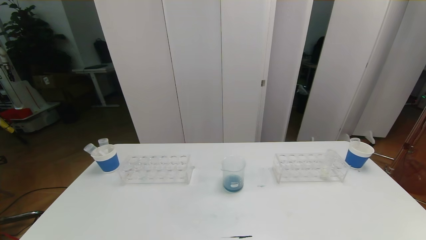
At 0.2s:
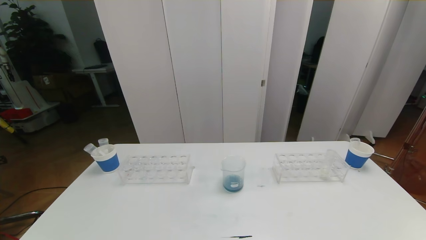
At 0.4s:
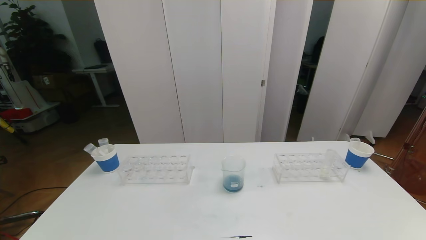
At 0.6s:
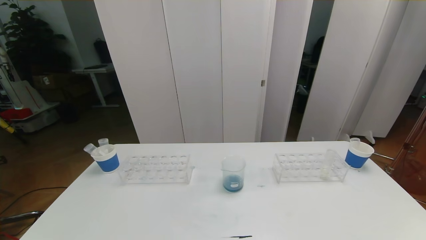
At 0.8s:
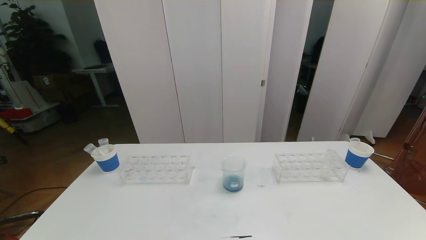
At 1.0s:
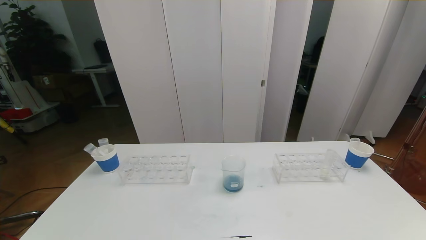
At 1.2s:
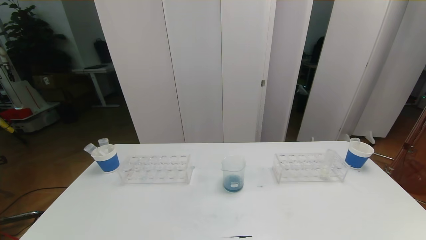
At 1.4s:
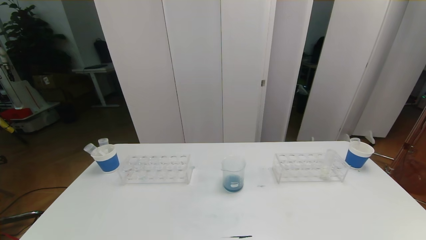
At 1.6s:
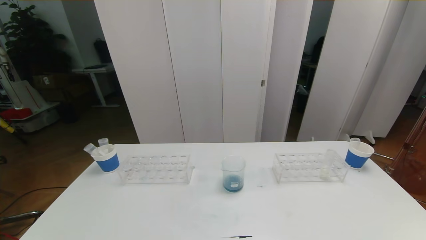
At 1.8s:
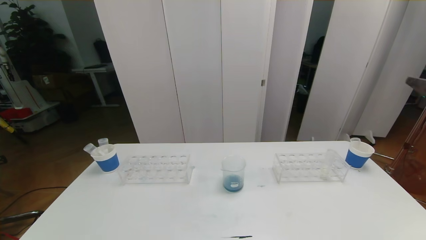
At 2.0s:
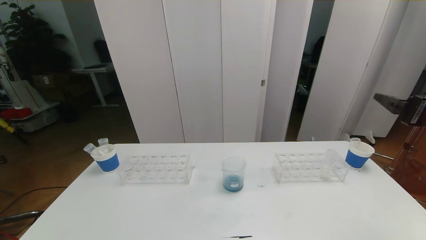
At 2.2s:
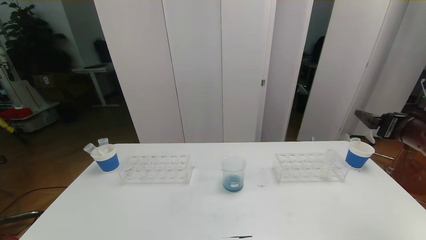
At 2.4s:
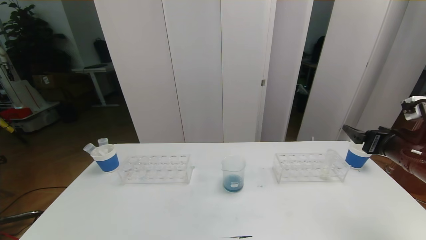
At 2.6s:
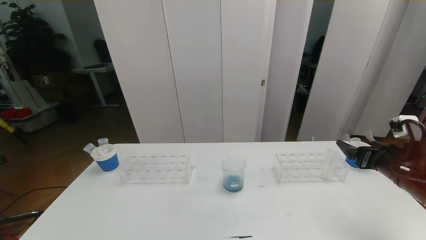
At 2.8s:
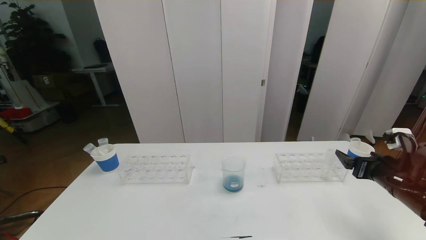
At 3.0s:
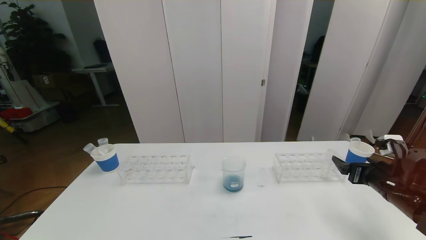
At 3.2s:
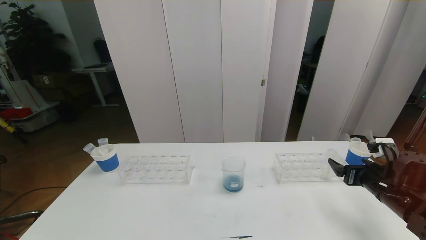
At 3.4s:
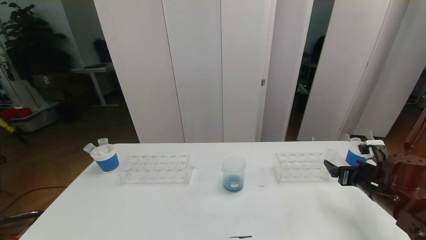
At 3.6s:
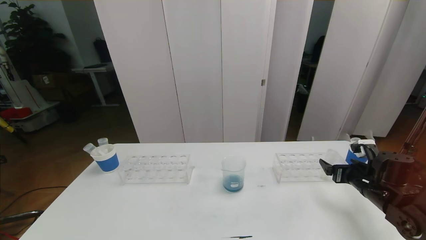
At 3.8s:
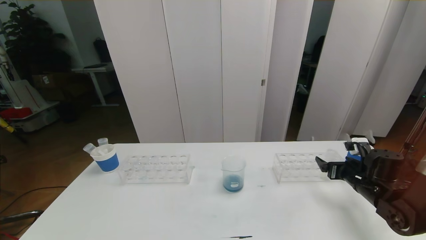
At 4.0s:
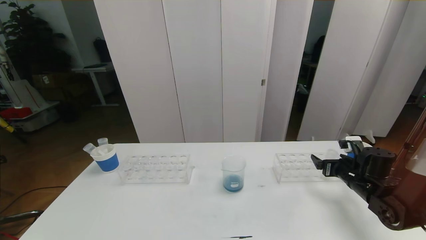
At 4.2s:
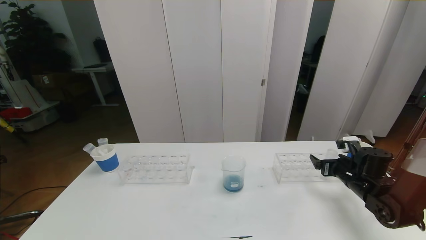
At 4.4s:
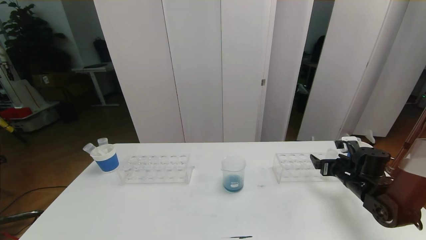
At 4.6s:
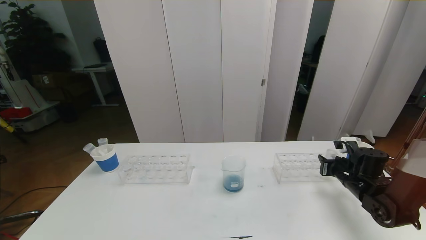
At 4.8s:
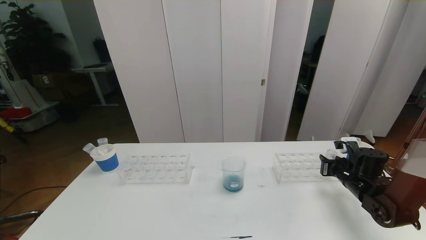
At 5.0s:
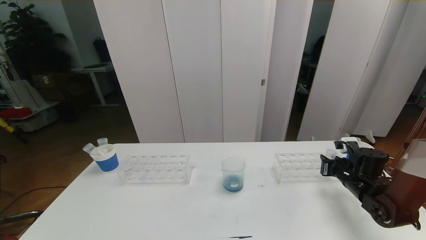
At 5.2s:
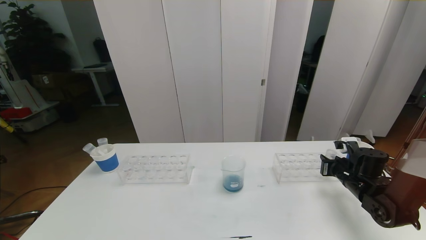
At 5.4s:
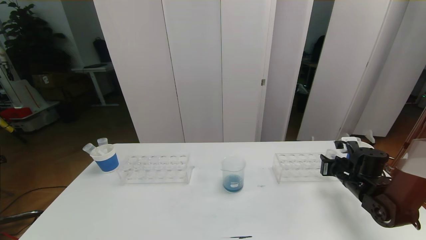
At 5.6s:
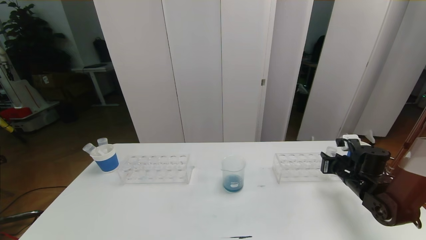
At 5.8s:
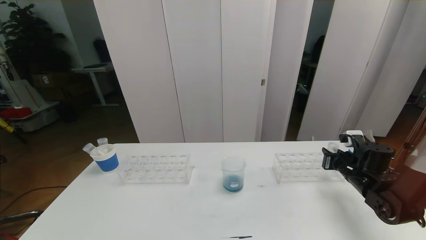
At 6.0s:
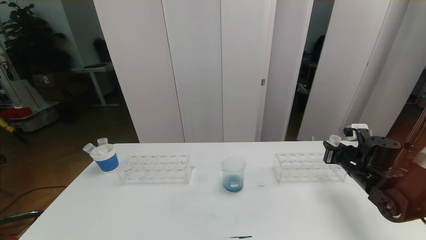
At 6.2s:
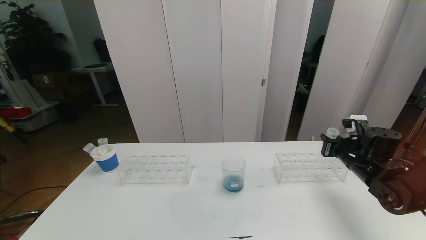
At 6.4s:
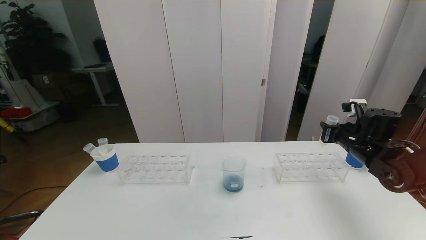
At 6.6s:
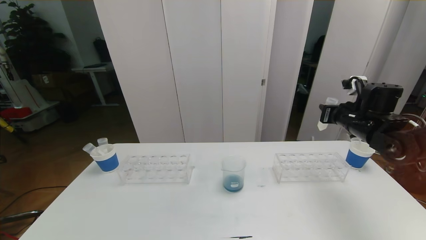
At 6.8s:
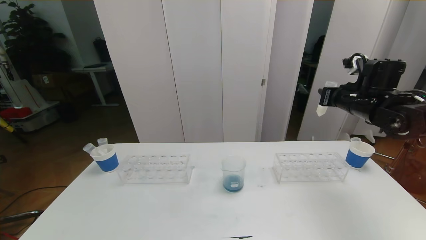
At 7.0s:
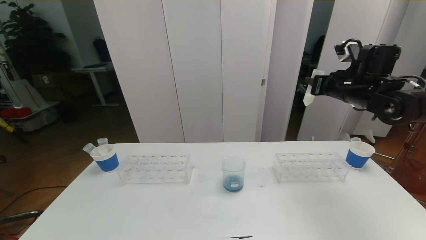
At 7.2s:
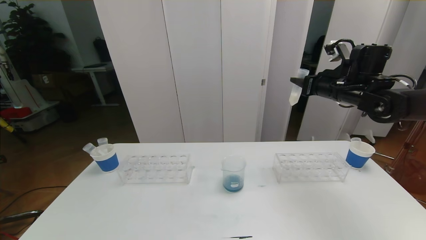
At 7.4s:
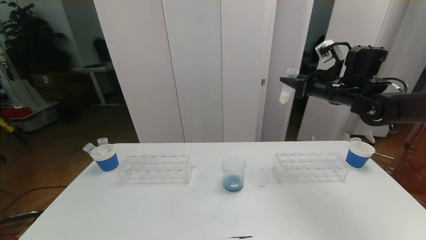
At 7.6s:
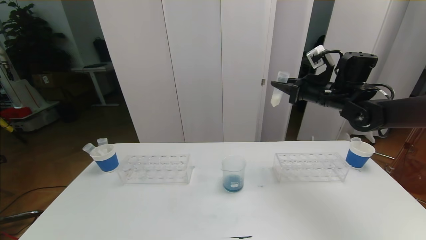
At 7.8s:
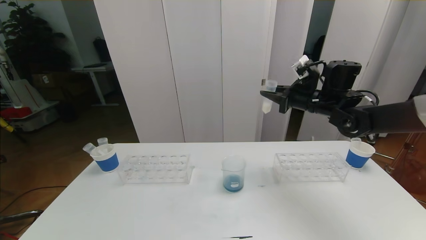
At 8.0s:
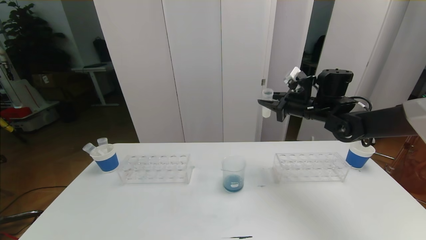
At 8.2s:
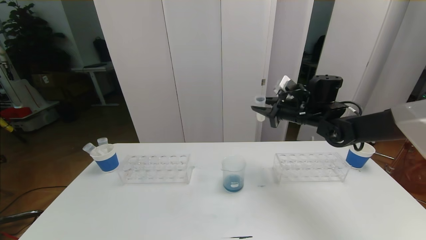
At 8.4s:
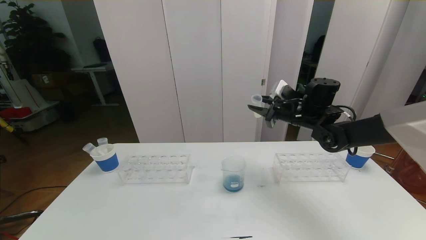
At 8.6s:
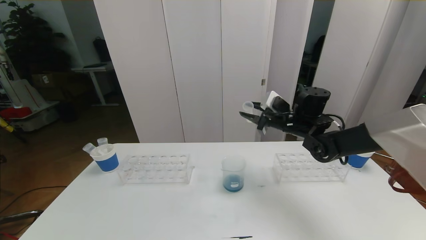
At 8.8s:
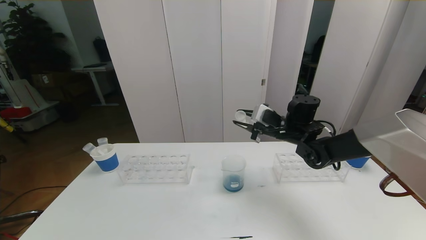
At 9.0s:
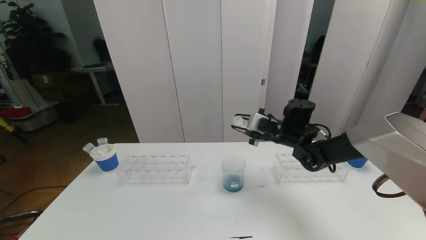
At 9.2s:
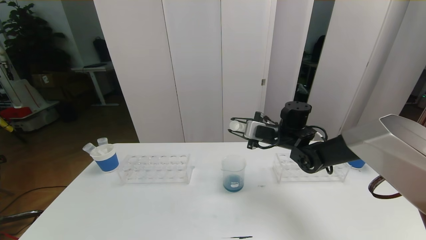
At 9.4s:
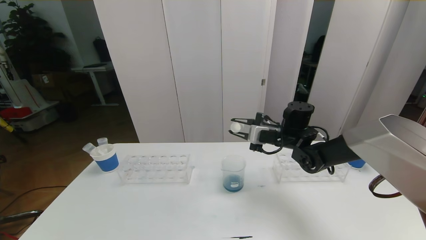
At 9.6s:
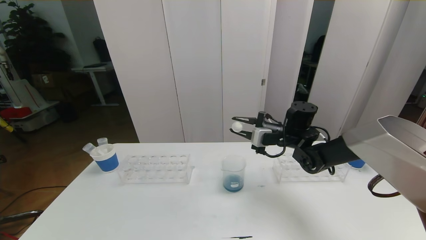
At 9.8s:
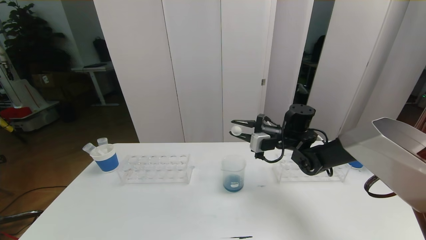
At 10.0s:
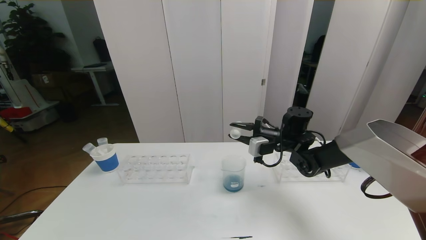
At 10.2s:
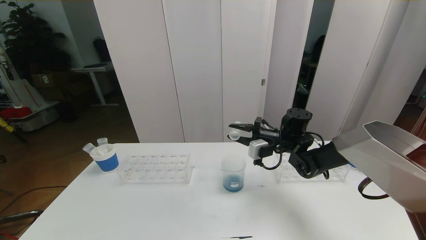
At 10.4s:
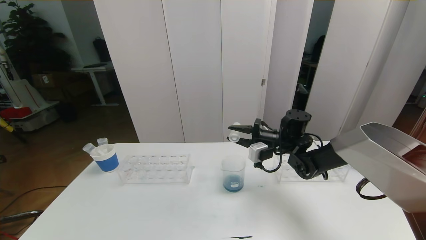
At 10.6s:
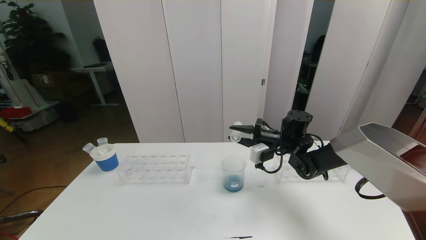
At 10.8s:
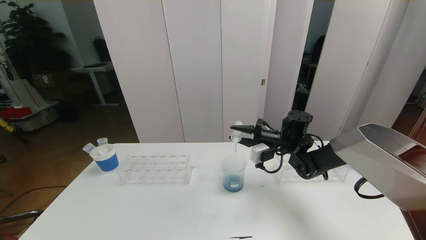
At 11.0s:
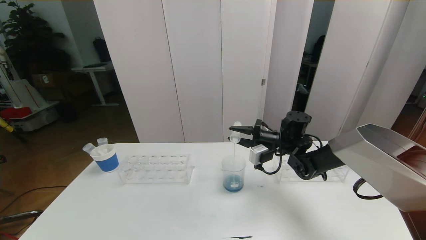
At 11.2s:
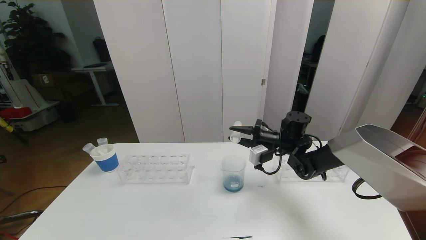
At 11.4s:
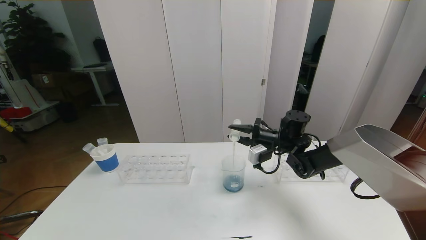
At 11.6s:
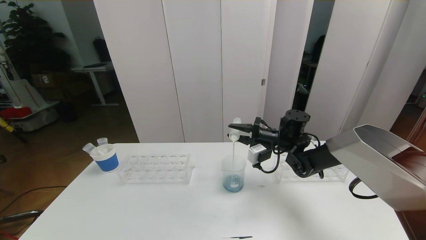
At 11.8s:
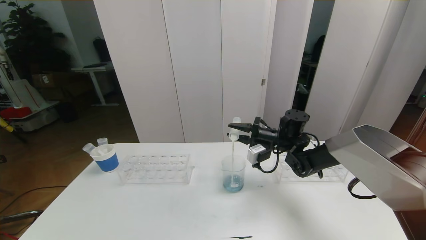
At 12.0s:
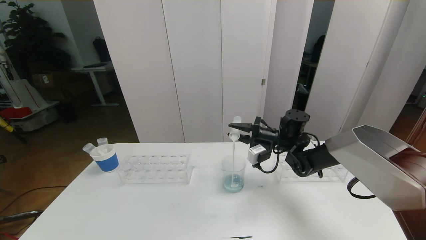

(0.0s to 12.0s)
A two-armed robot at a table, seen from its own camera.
Task of the whole recording: pick up the test tube with red pigment the test tube with blue pigment and the test tube with white pigment by grippers and pour them into the beaker.
1.6s - 3.0s: The right gripper shifts roughly 25 cm downward and forward.
3.0s - 4.4s: The right gripper heads forward and downward, covering about 10 cm.
4.4s - 6.0s: The right gripper closes.
6.0s - 7.6s: The right gripper heads upward, forward and to the left, covering about 20 cm.
7.6s - 9.0s: The right gripper travels downward and to the left by some 15 cm.
10.4s - 12.0s: The grippers move only a little.

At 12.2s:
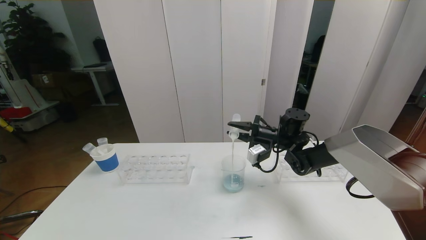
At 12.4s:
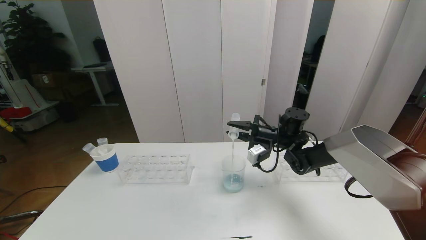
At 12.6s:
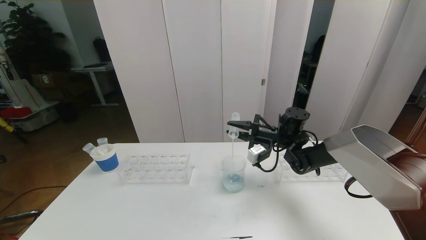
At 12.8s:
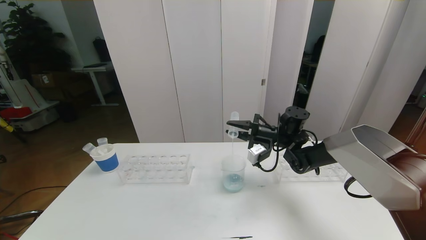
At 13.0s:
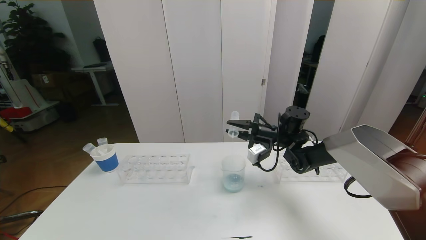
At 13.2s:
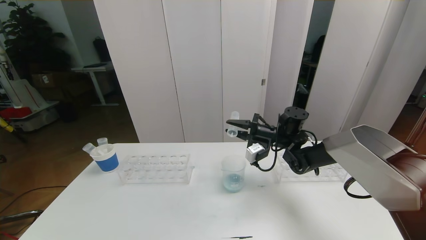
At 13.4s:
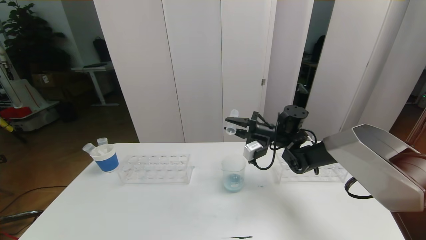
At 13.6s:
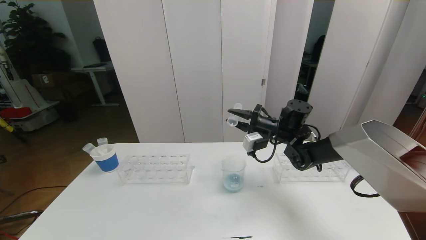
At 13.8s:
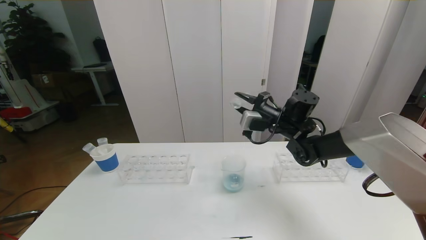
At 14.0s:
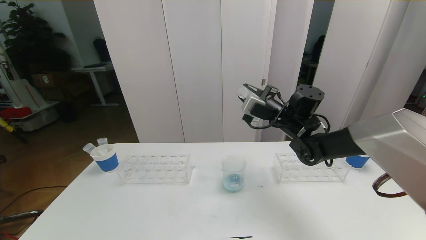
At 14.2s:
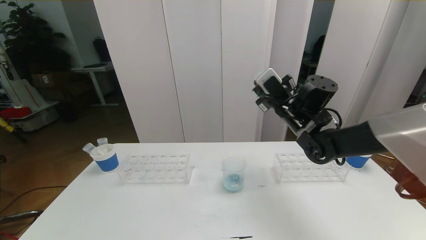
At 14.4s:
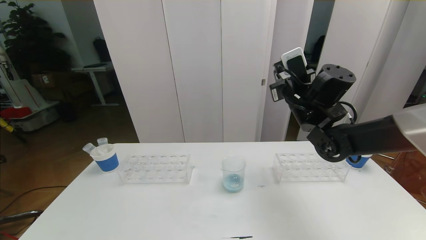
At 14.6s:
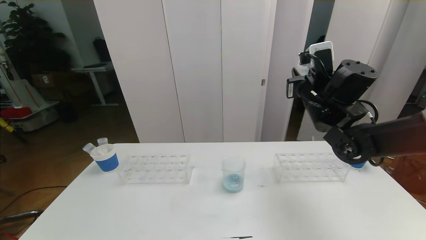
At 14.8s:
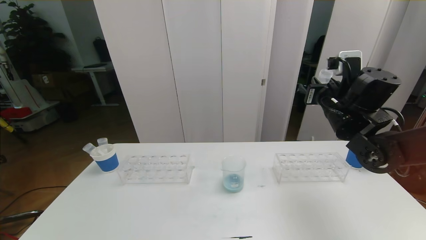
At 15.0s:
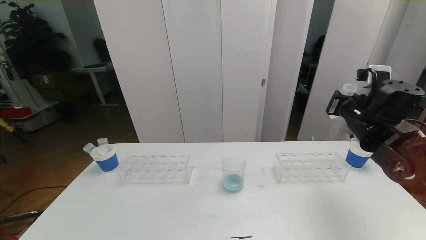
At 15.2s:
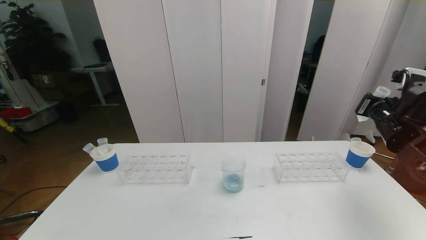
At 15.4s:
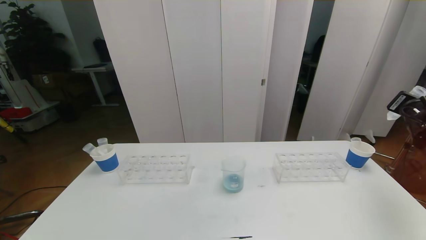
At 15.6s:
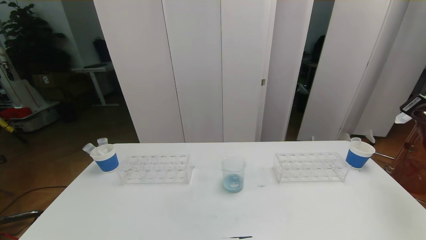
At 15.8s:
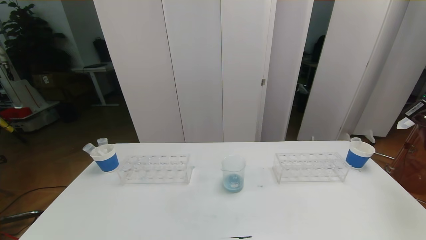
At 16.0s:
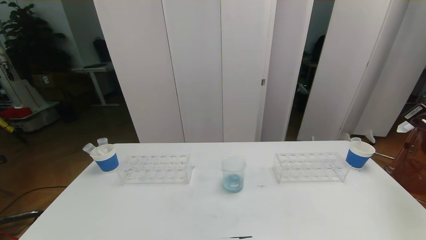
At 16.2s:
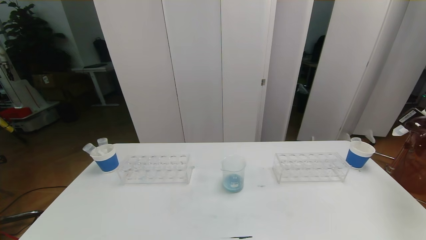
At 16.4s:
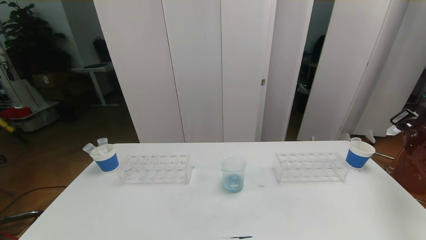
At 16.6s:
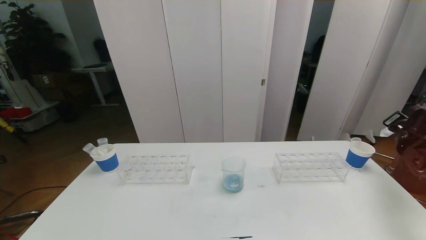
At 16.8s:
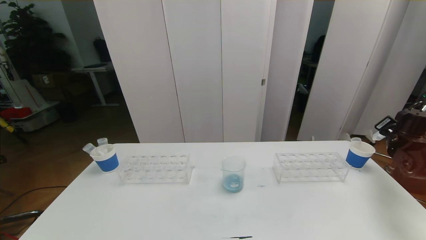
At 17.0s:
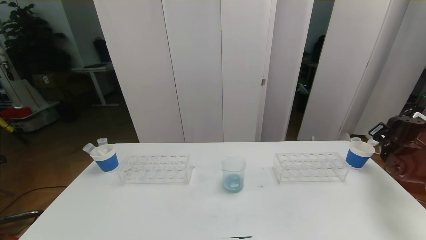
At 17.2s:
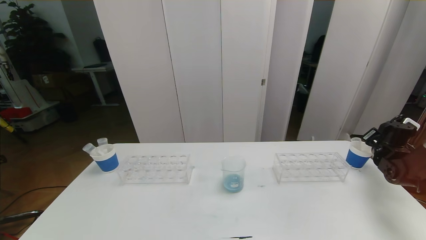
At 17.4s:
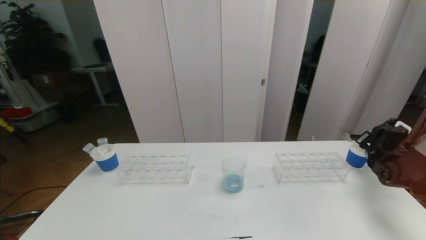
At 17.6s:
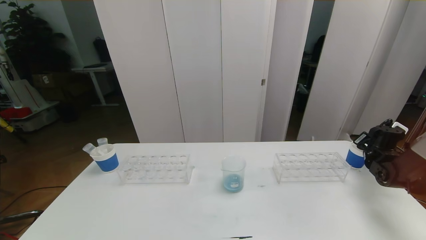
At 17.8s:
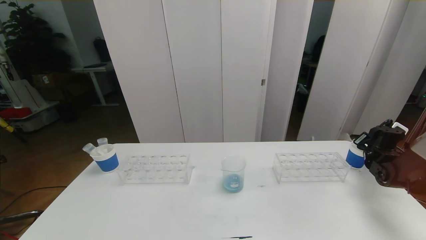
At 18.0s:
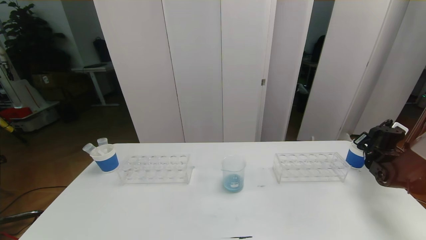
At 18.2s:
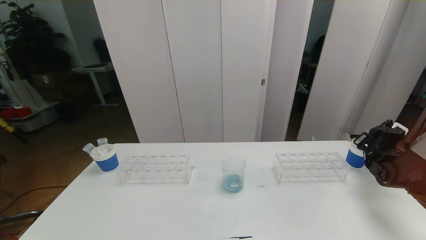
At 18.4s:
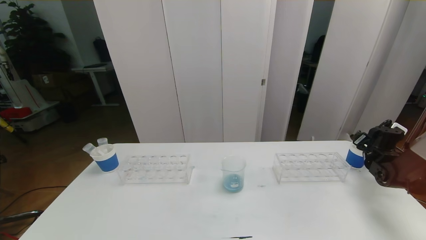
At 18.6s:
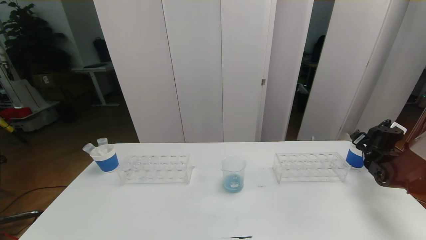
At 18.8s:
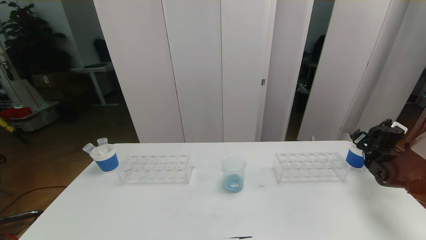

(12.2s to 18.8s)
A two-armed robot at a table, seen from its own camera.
Task of the whole recording: pick up the test tube with red pigment the test tube with blue pigment and the test tube with white pigment by grippers and pour them into the beaker.
12.2s - 13.8s: The right gripper heads upward, covering about 5 cm.
13.8s - 15.4s: The right gripper shifts roughly 25 cm to the right.
15.4s - 17.2s: The right gripper heads downward and forward, covering about 15 cm.
17.2s - 18.8s: The right gripper opens its fingers.
